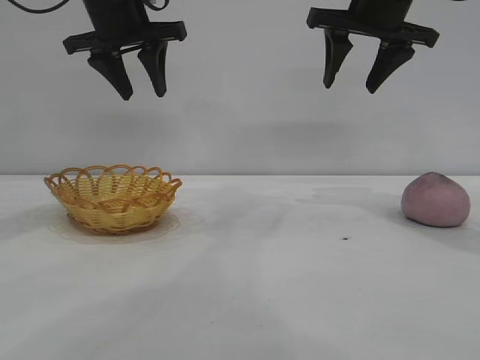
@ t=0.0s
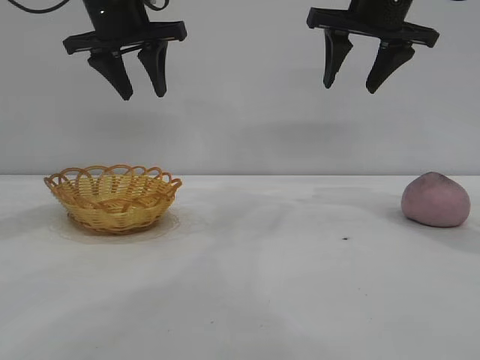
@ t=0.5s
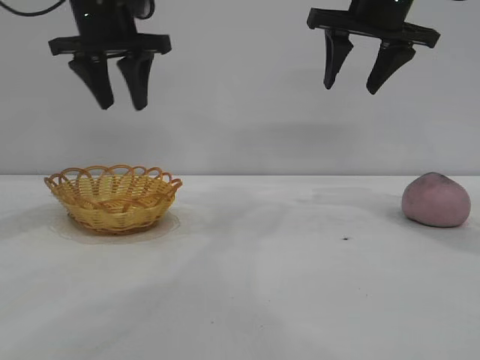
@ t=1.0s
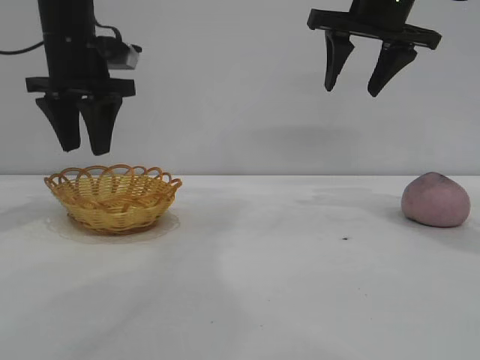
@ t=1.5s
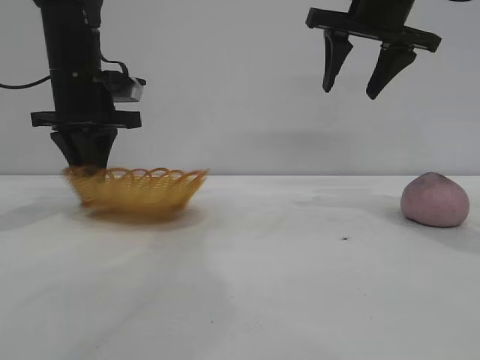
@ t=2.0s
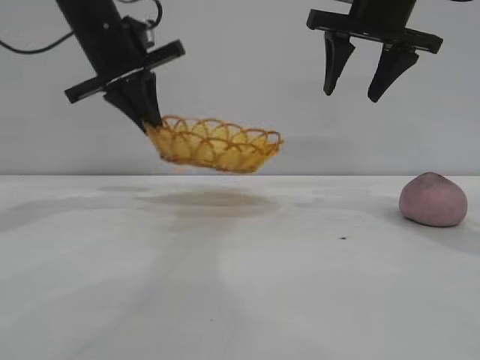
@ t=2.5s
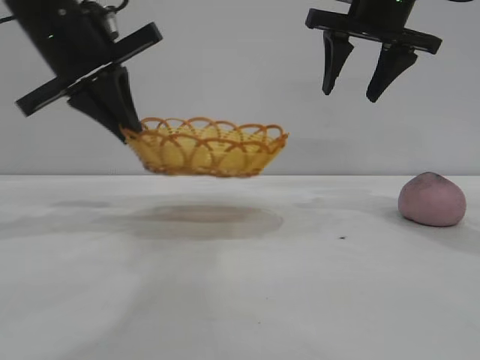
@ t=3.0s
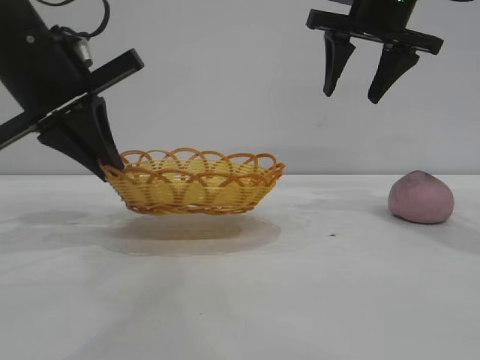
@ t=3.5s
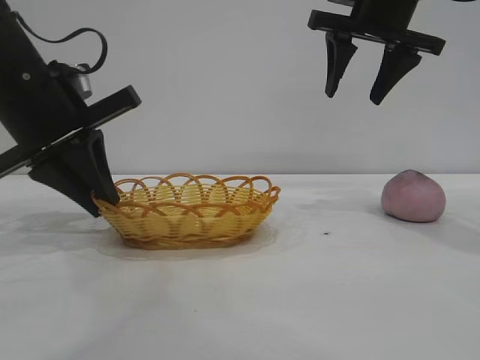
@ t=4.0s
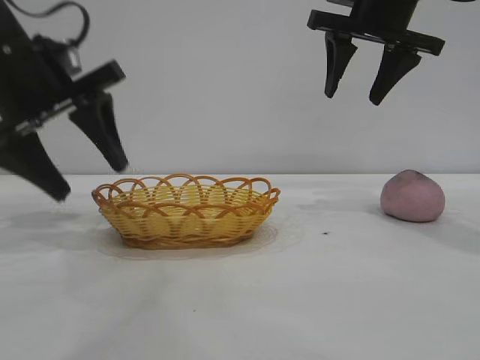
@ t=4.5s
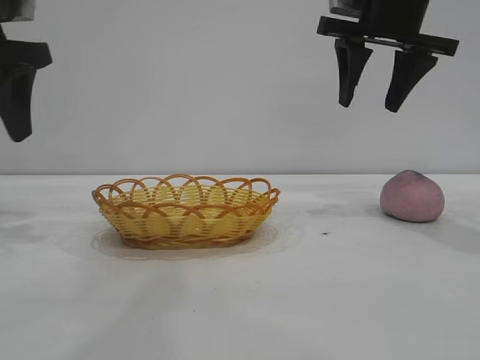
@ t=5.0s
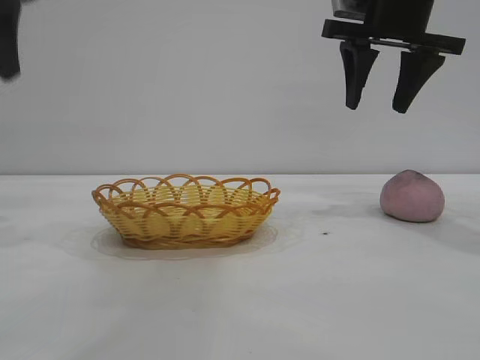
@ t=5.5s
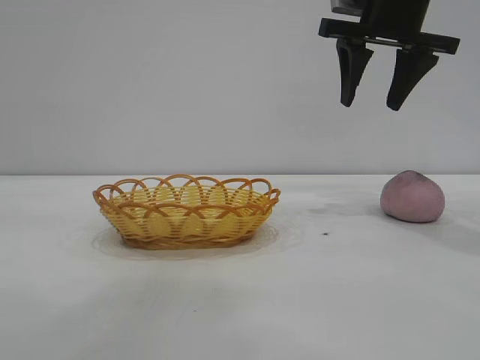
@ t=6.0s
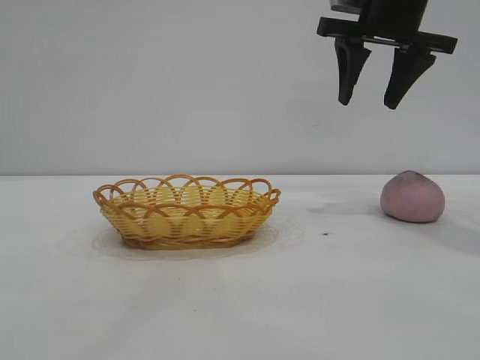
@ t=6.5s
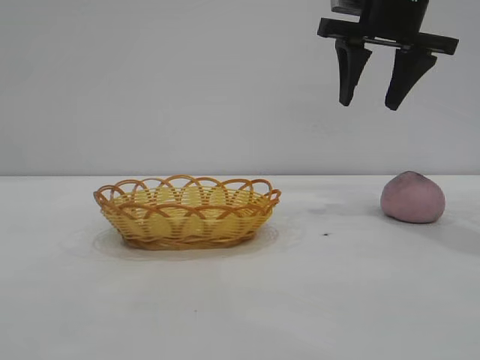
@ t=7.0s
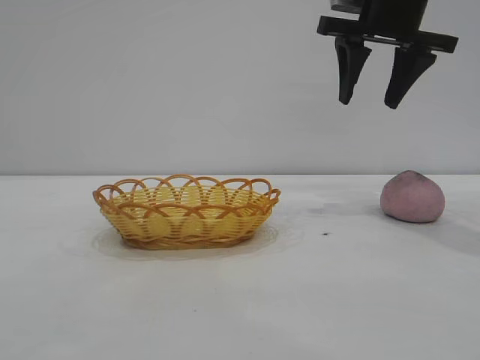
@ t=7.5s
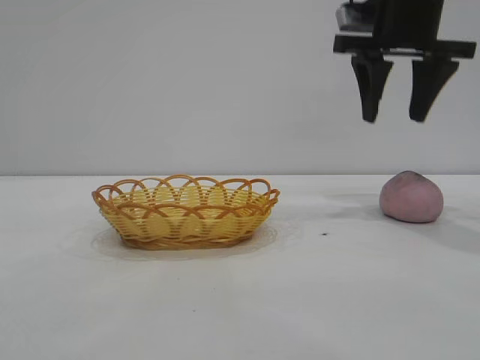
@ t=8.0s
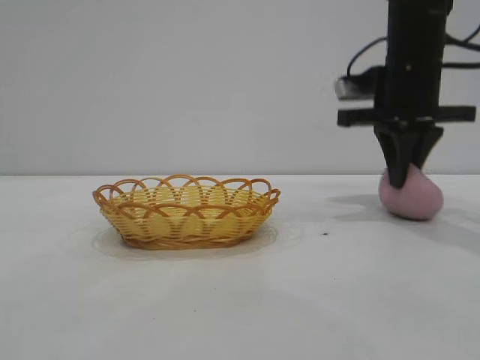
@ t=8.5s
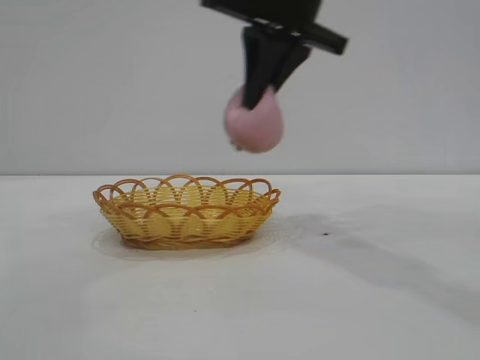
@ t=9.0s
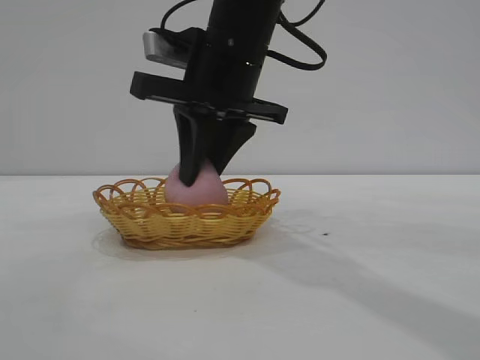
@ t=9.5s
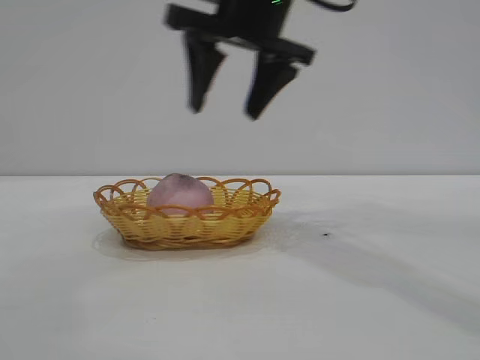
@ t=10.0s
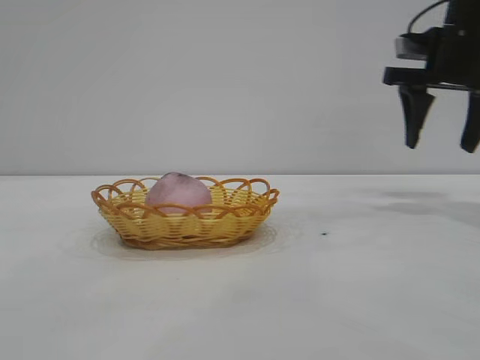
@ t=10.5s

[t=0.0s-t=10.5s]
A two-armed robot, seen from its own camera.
Task of the whole recording: pick up the peach and put it into the basket.
Step, t=0.0s to t=4.5s: Move the basket to the center of view.
Step, t=5.0s to t=8.5s: Pick up the peach.
Step, t=9.0s to t=9.5s: place the peach into the basket.
